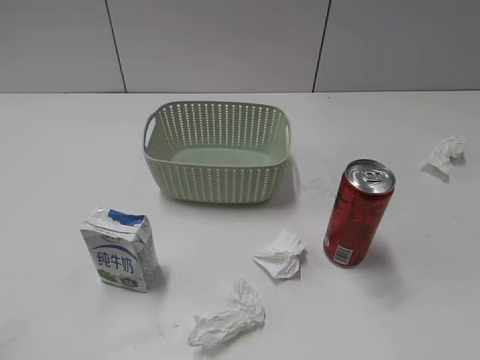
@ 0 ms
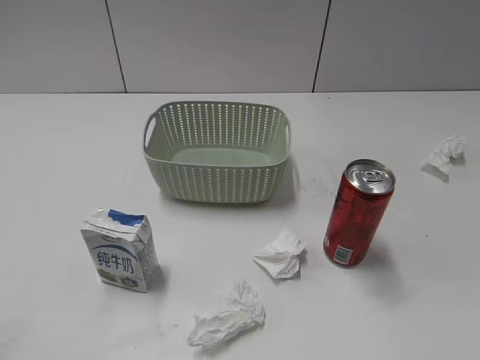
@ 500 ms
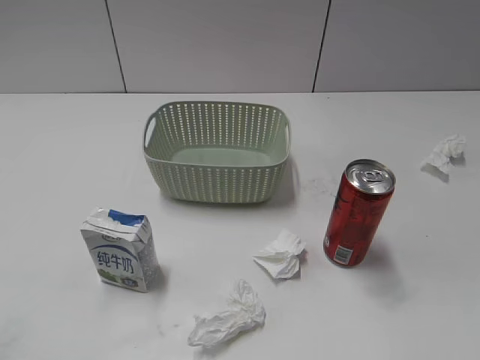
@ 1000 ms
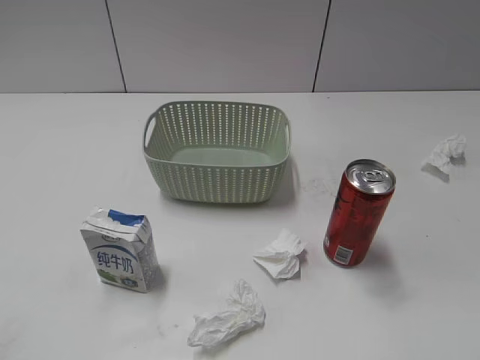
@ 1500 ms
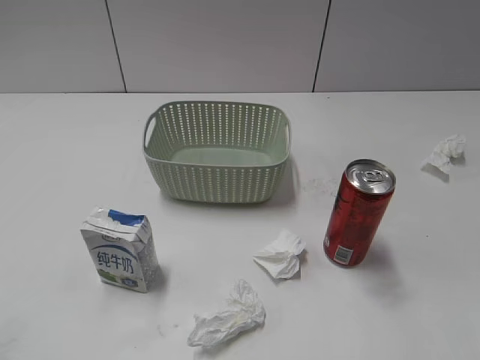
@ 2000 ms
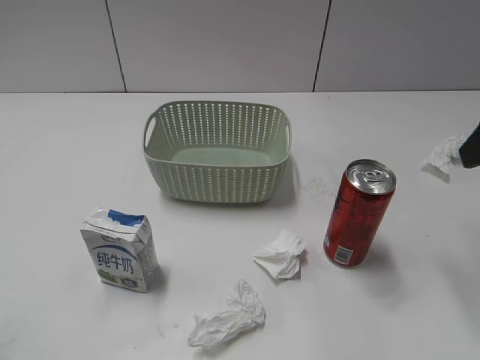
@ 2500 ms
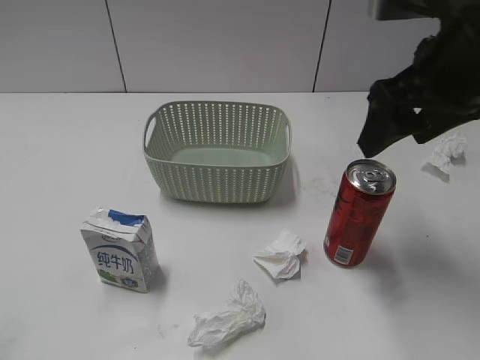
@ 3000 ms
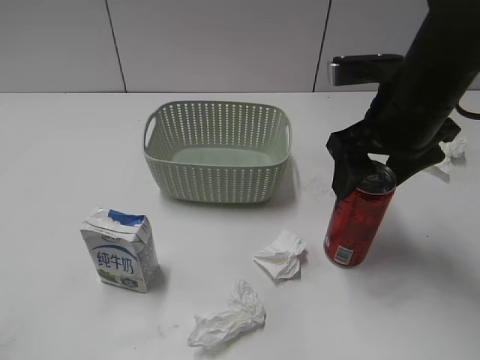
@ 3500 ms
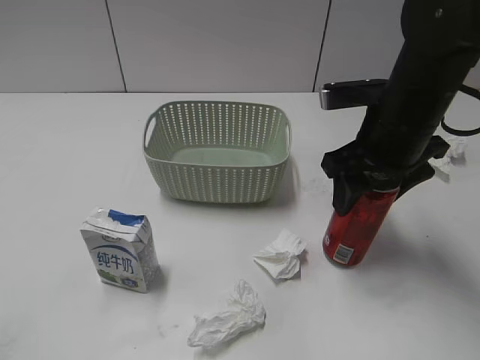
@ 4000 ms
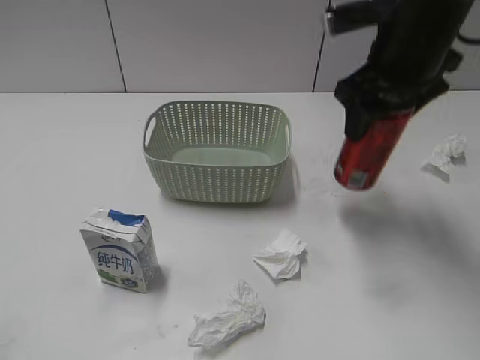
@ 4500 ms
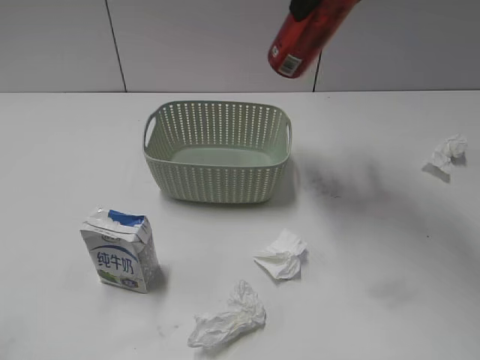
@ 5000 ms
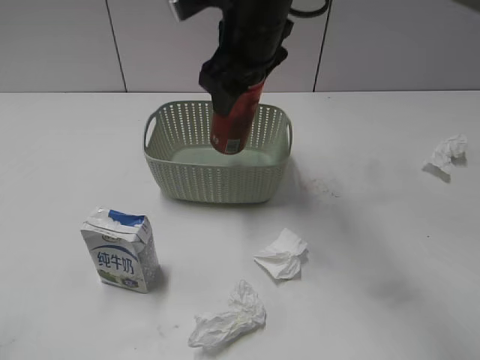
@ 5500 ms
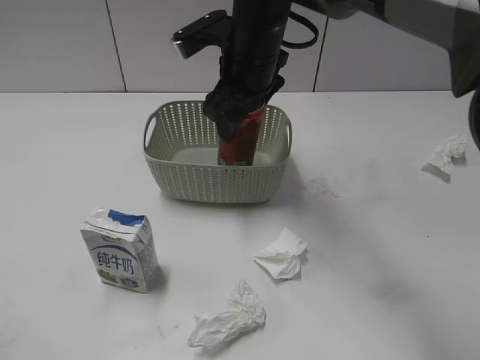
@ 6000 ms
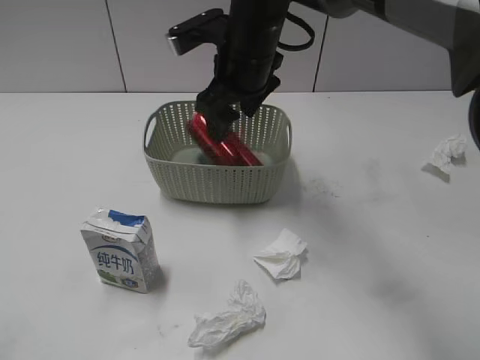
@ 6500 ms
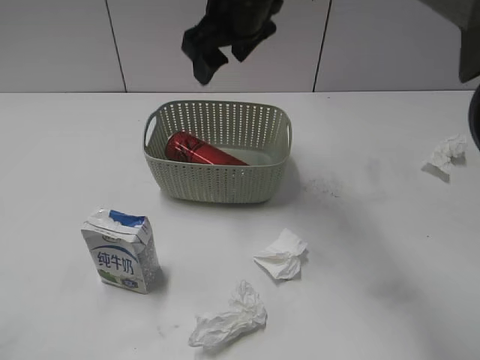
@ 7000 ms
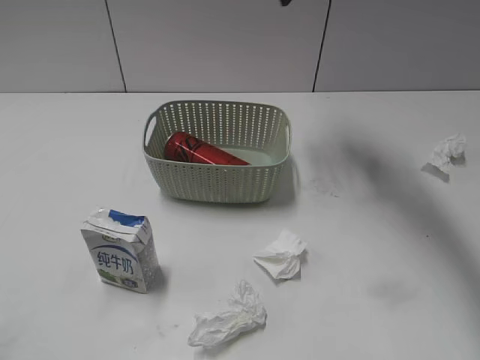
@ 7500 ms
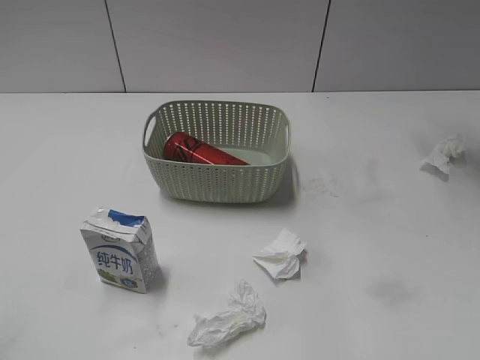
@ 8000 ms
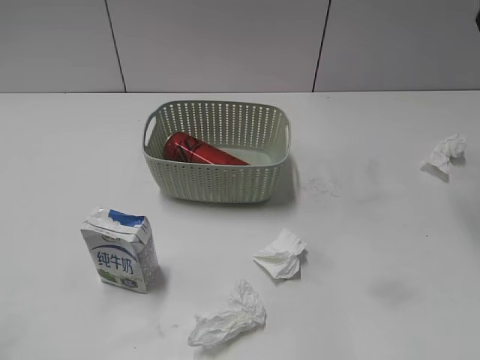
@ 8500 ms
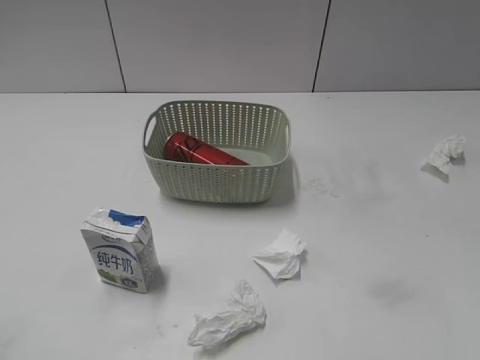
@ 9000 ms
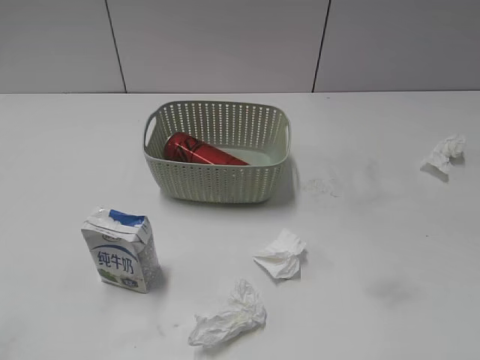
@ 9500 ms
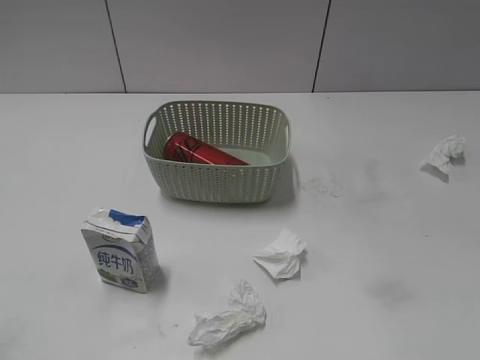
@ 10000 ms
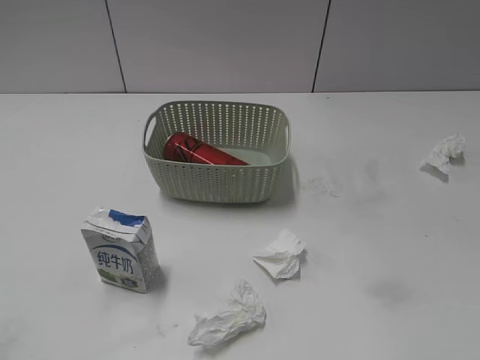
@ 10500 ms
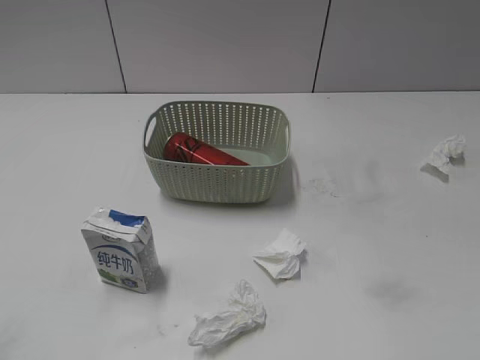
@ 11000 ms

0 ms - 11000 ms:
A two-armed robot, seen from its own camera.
Step, 2500 ms - 4000 ms: Grasp the cola can with right gripper.
Step, 4500 ms - 7000 ms: Place the cola can in the basket with right gripper.
2000 ms - 3500 ms: The right gripper heads forward, to the left and downward, covering roughly 25 cm.
3500 ms - 5500 ms: The right gripper heads to the left and forward, covering approximately 15 cm, and goes upward and returns, roughly 15 cm each way.
5500 ms - 7500 ms: The right gripper travels to the right, forward and upward by roughly 15 cm.
7500 ms - 9000 ms: The right gripper travels backward and to the right by some 30 cm.

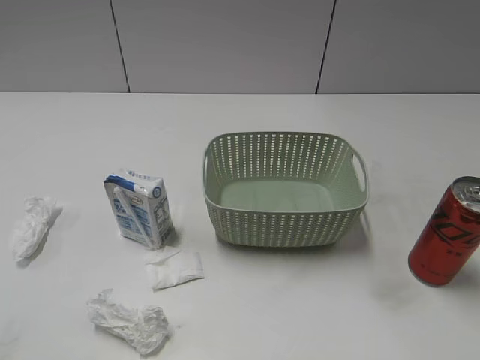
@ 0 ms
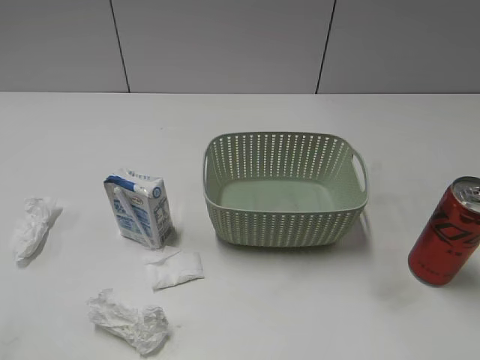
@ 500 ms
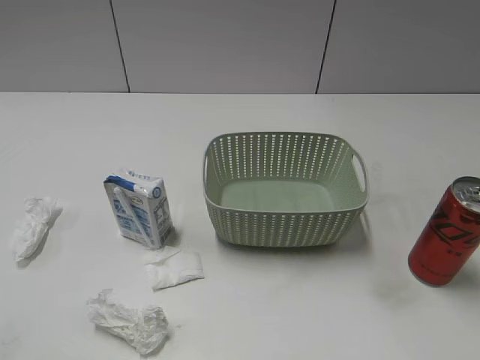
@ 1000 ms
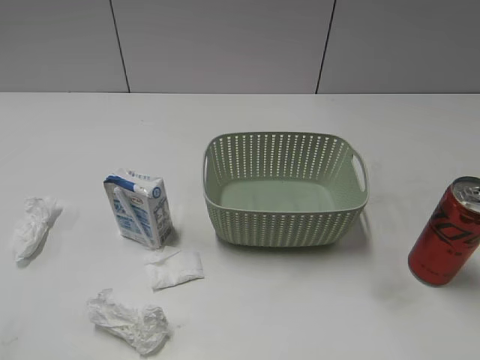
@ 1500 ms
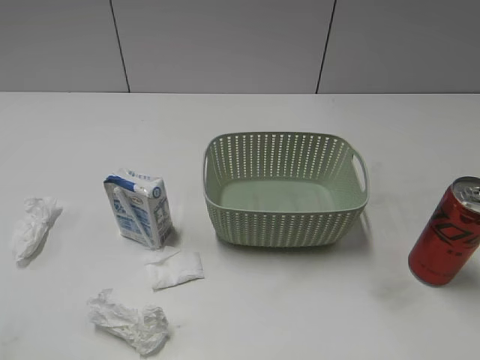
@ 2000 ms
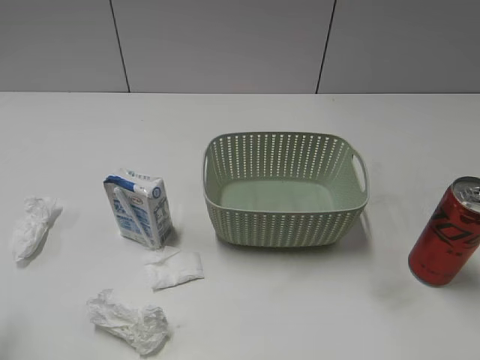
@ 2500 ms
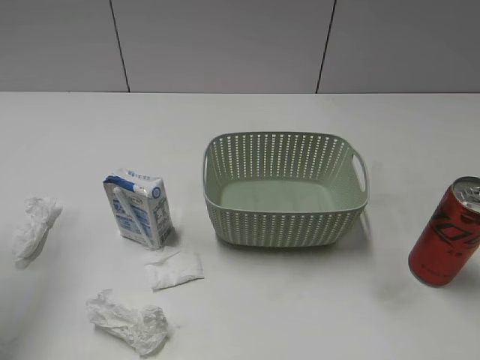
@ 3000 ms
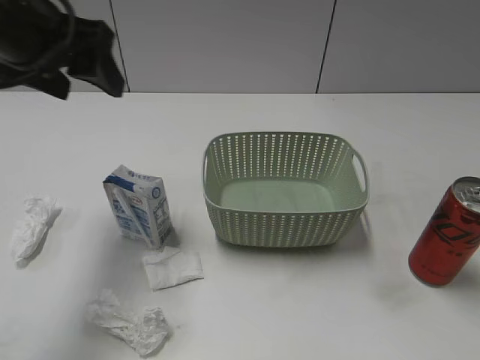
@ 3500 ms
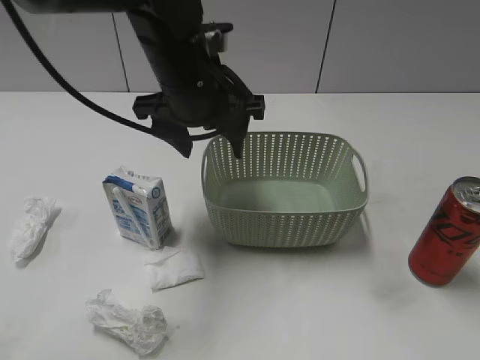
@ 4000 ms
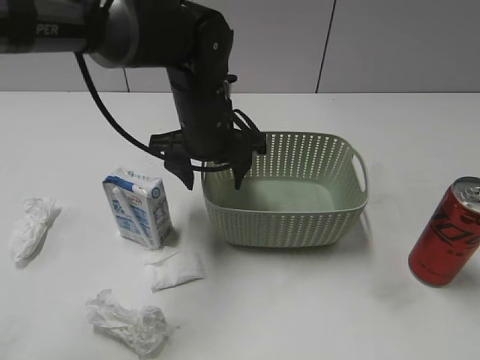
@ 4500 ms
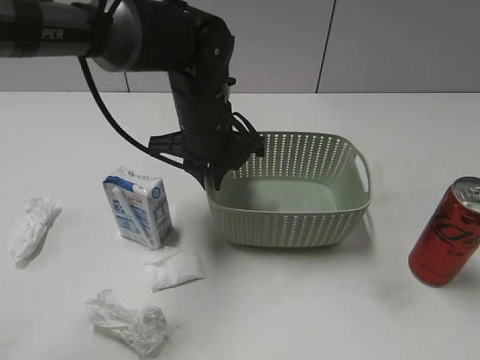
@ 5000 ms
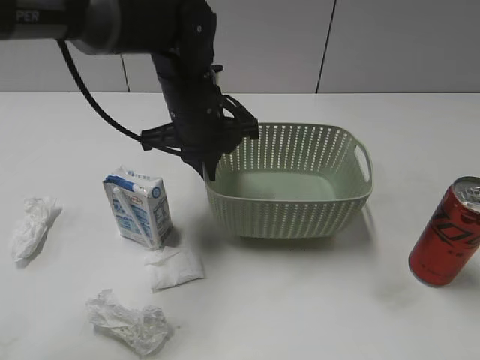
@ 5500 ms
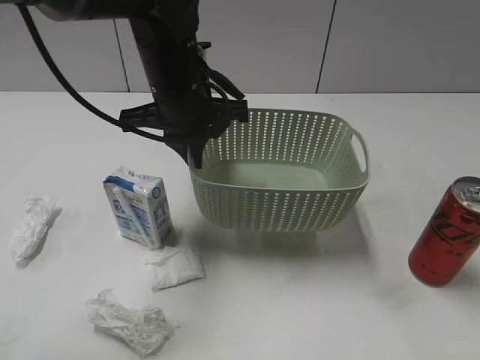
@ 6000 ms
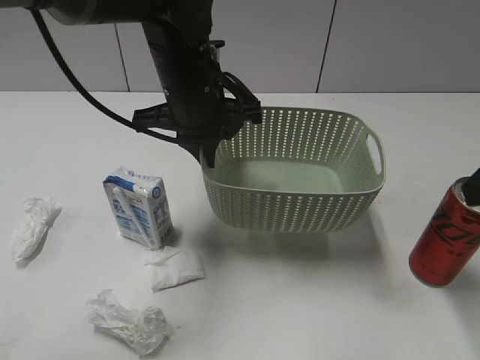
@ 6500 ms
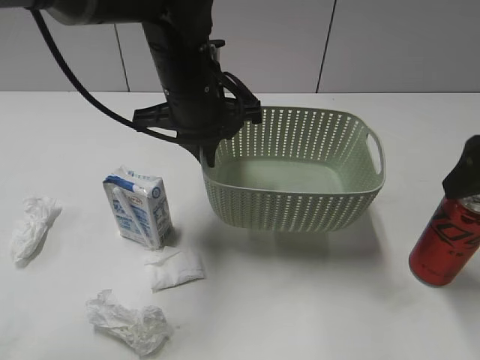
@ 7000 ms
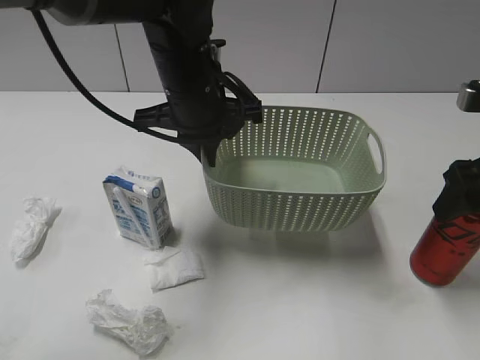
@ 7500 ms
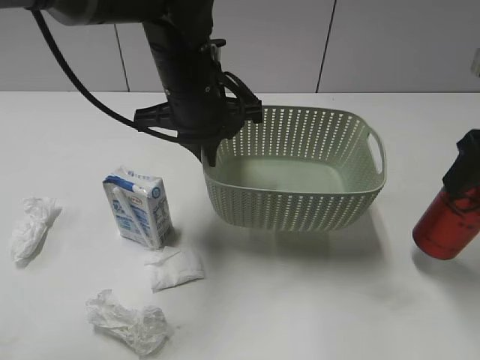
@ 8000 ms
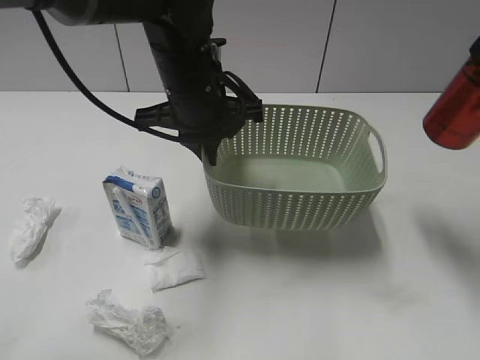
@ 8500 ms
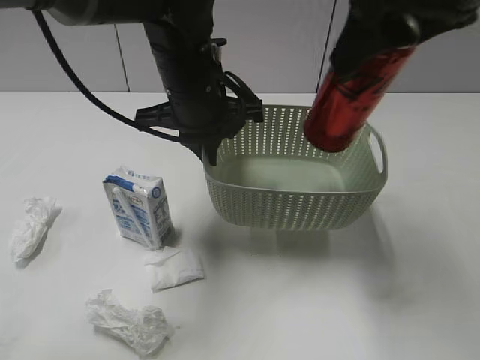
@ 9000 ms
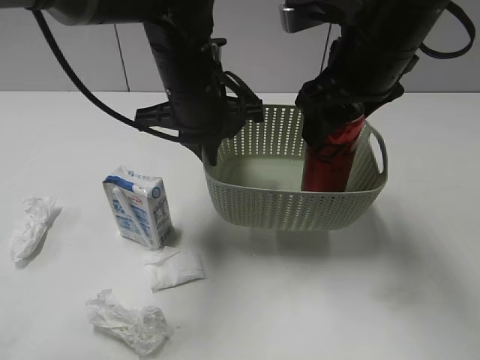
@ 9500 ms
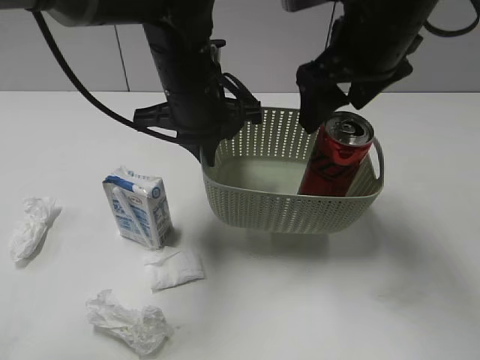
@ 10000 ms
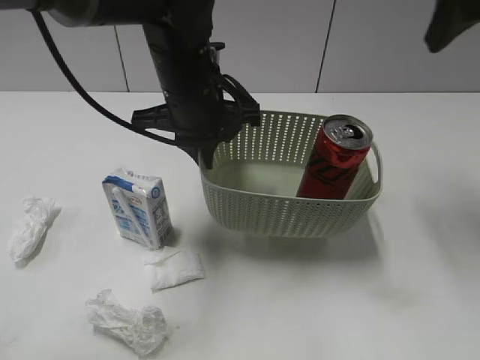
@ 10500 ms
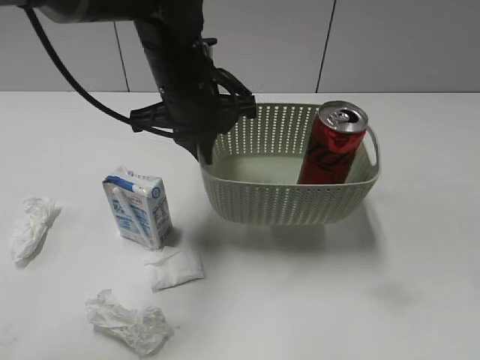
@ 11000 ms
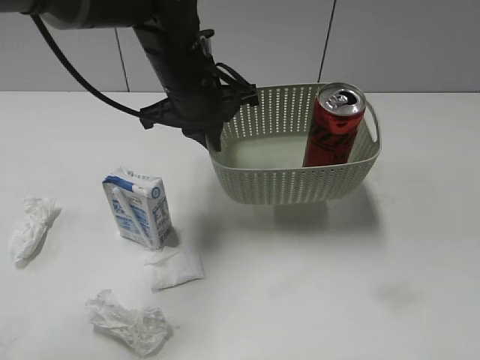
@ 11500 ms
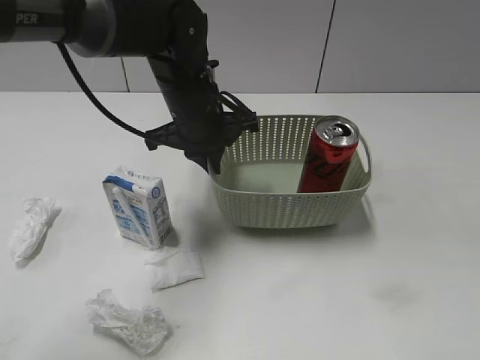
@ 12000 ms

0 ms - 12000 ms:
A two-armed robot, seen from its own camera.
Step, 3500 ms - 5000 ms: Grasp the basket with left gripper.
Step, 5500 ms - 6000 ms: Lift the basket with left gripper.
Step, 6500 ms - 7500 ms: Grasp the cola can with right gripper.
Step, 8000 ms - 10000 ms: Place the cola can in the basket with right gripper.
2000 ms - 4000 ms: The left gripper is displaced forward and to the right by approximately 40 cm.
4000 ms - 6000 ms: The right gripper goes some 15 cm forward and upward, and opens up; the left gripper closes.
6000 ms - 8000 ms: The right gripper travels forward by roughly 15 cm, and closes.
8000 ms - 10000 ms: The right gripper shifts roughly 15 cm to the left and forward, and opens.
10000 ms - 12000 ms: The left gripper shifts by approximately 5 cm. Meanwhile the right gripper is displaced backward and to the right by about 35 cm, and closes up.

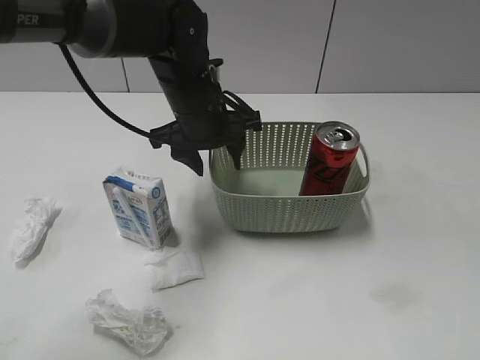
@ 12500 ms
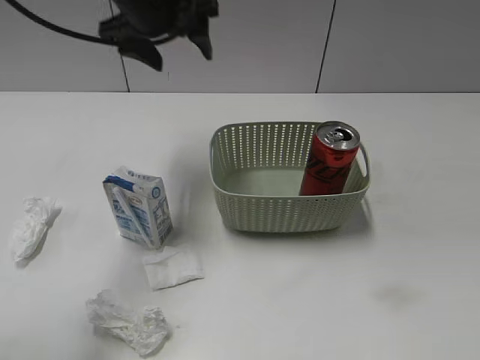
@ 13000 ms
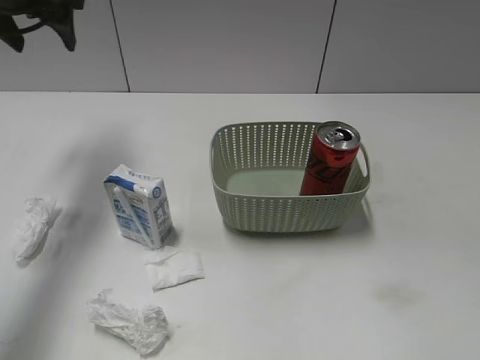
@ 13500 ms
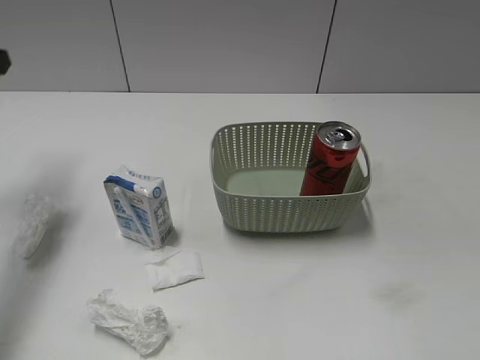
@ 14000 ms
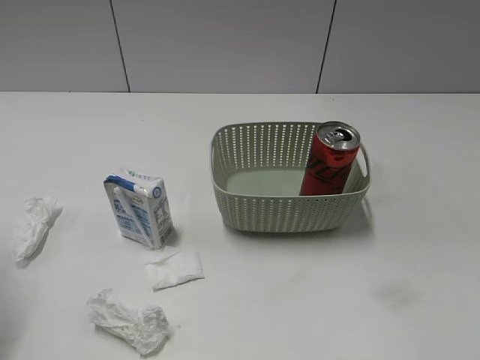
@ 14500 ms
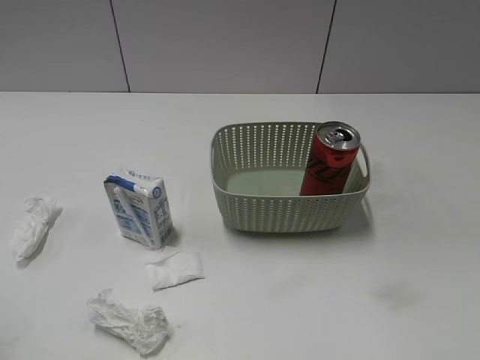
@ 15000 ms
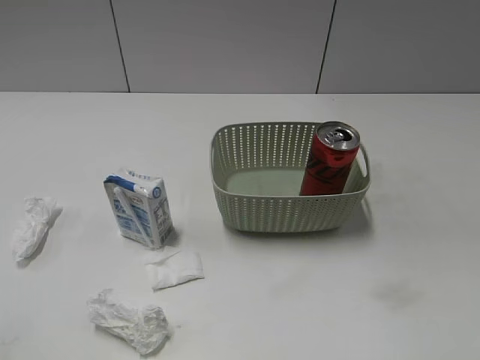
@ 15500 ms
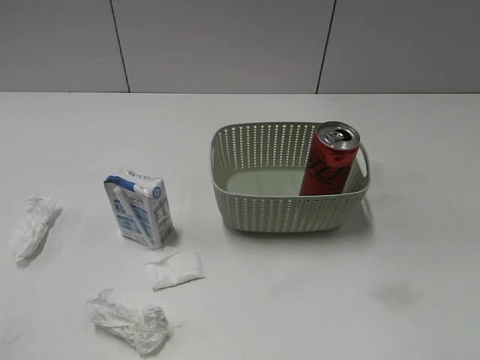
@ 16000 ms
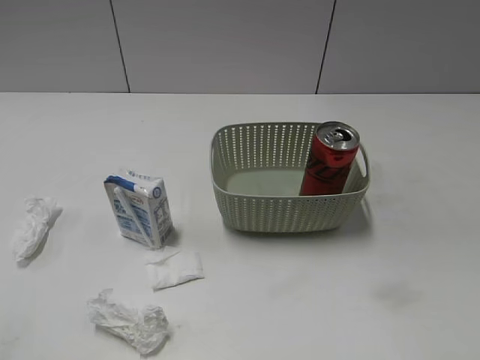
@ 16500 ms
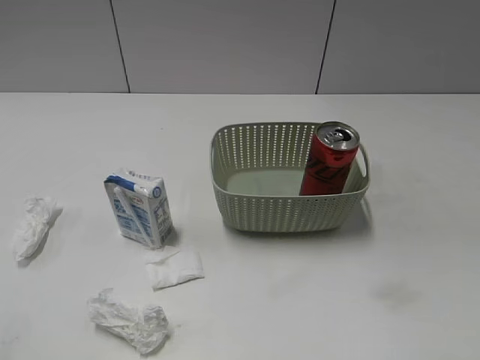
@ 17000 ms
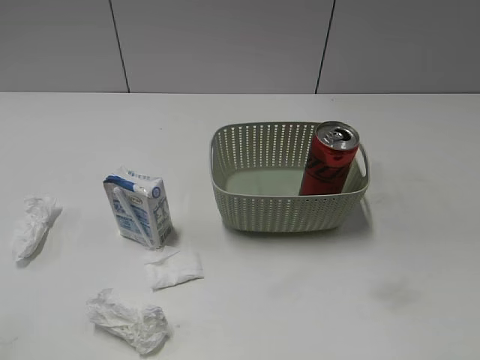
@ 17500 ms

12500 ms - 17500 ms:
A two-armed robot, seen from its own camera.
12500 ms - 15000 ms: The left gripper heads to the left and backward, covering about 40 cm.
